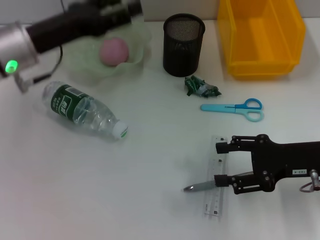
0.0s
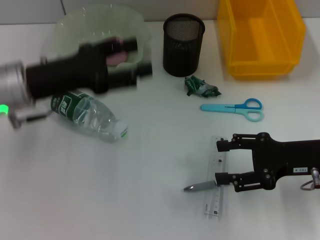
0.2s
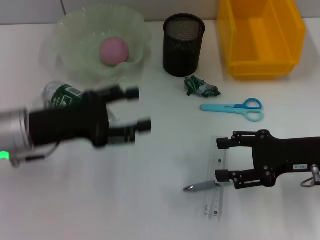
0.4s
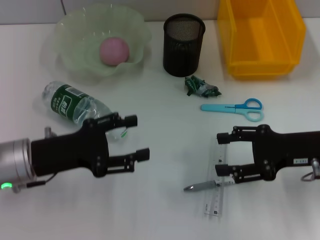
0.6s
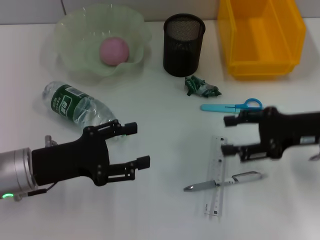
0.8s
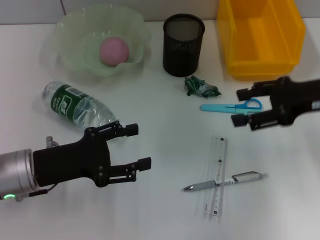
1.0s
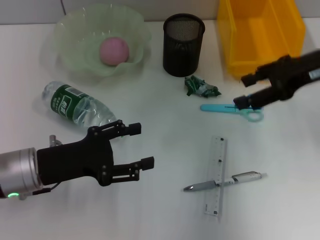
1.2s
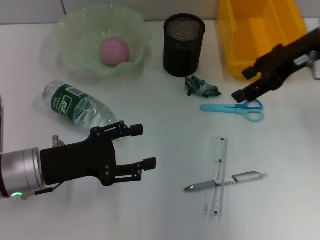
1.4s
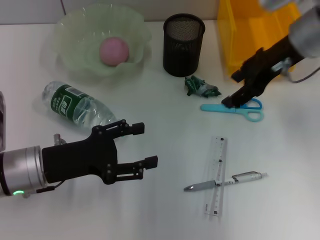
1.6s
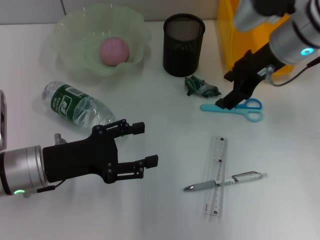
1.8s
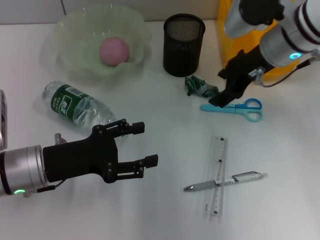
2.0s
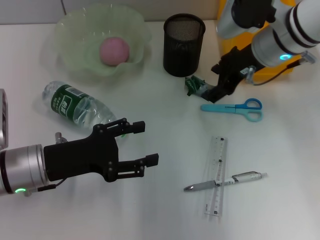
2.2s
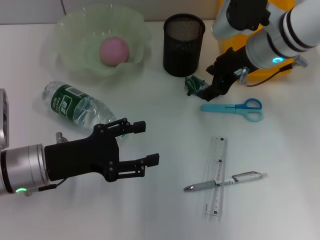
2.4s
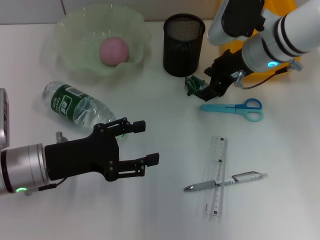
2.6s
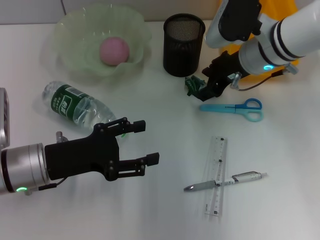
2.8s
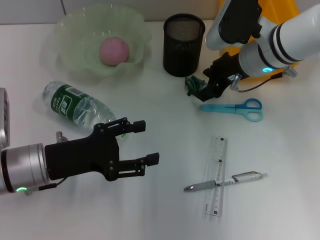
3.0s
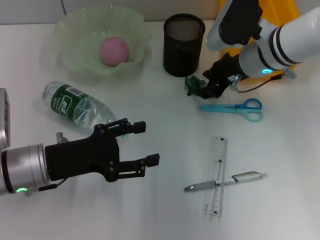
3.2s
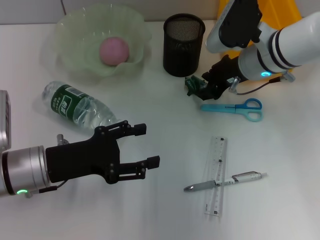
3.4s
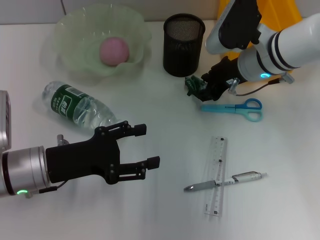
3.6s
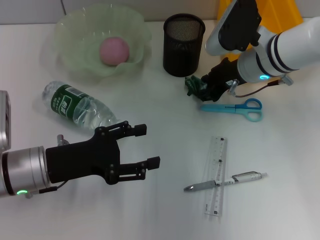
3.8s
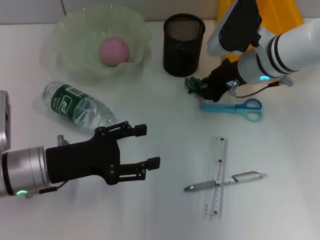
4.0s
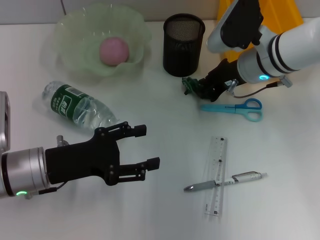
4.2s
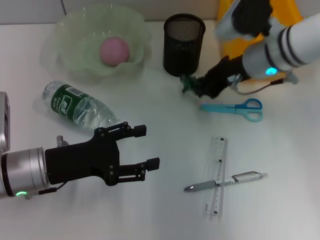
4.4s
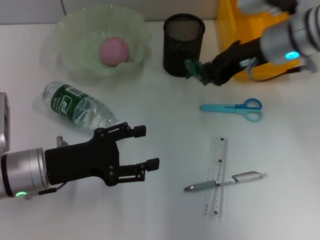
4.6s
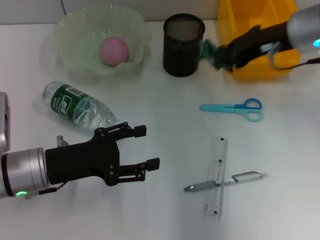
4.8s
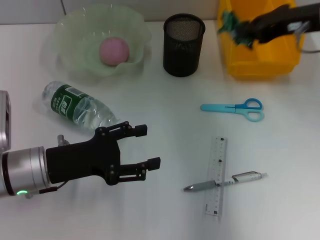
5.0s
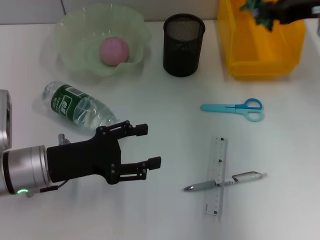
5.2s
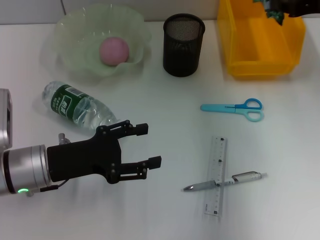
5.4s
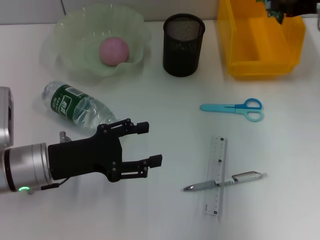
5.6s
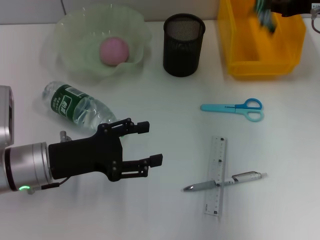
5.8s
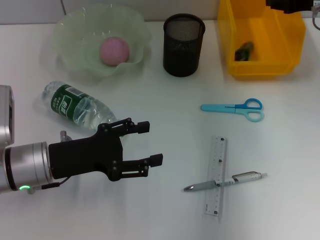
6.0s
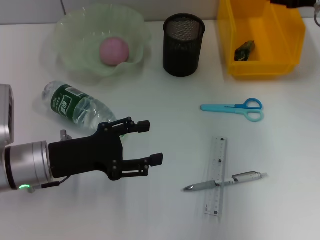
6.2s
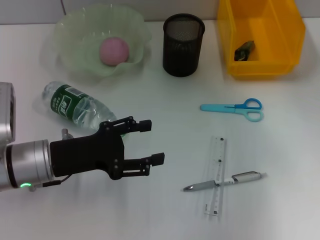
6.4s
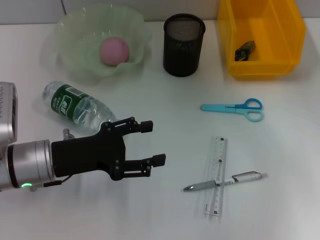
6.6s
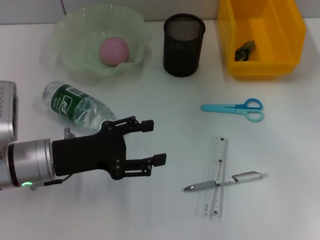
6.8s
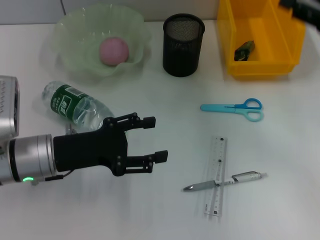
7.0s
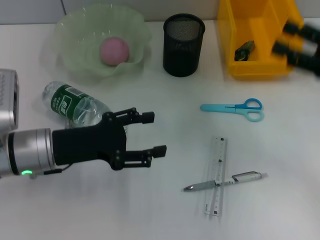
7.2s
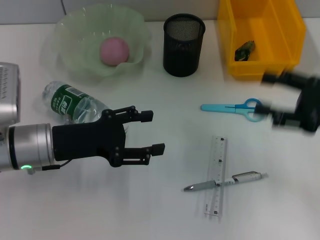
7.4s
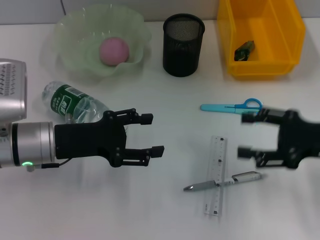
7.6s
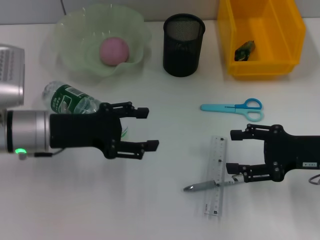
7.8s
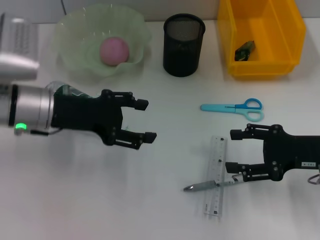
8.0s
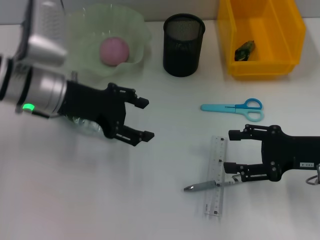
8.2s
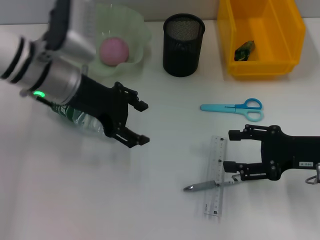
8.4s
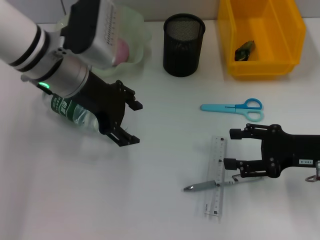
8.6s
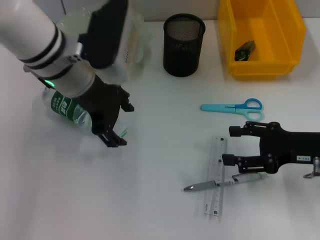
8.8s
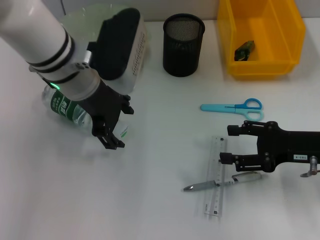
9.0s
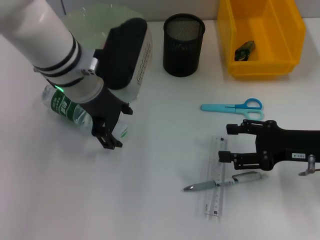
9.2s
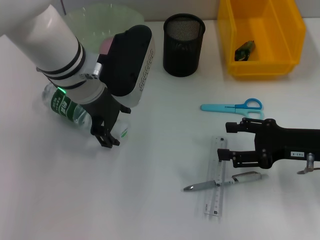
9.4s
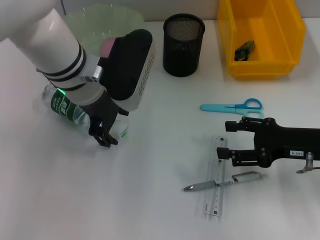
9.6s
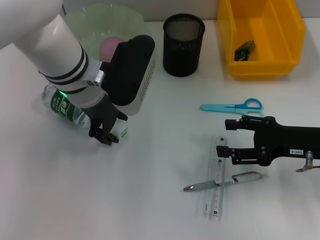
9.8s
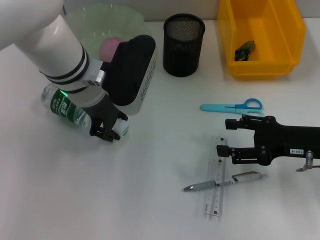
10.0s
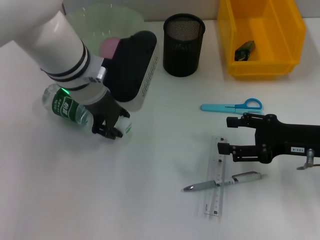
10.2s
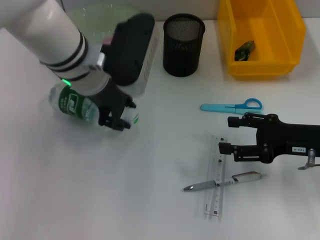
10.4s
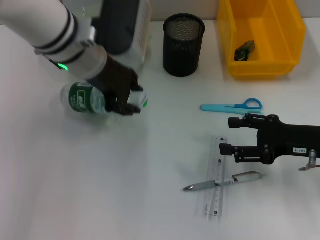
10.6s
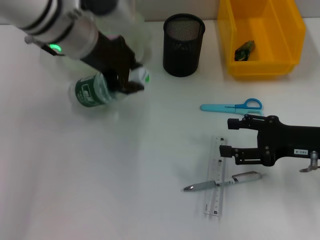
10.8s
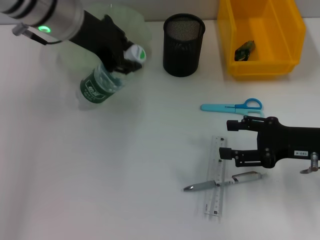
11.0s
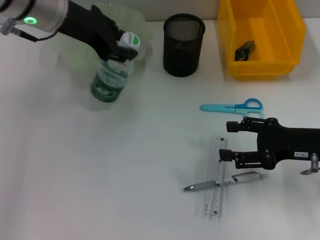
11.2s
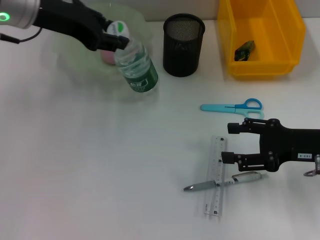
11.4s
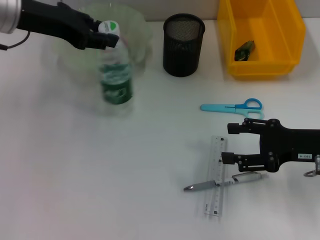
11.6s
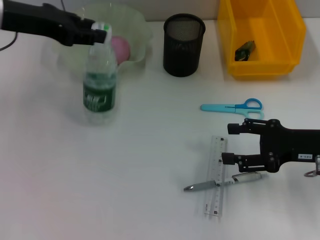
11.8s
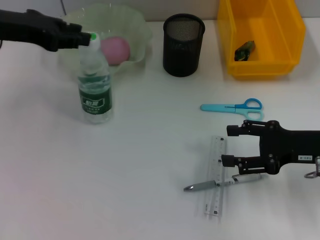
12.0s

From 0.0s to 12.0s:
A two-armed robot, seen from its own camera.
Step, from 0.0s to 4.0s: Grab the plastic with the right hand.
Step, from 4.2s to 6.0s: Place the plastic into the trash can with the right hand.
Step, from 6.4s to 9.8s: Grab the water bottle with the left hand.
From 0.0s to 1.6s: The right gripper heads upward, forward and to the left, covering approximately 20 cm, while the left gripper travels backward and downward by approximately 15 cm.
From 1.6s to 3.0s: The right gripper moves downward, some 5 cm.
From 3.0s to 4.4s: The right gripper closes its fingers.
From 4.4s to 6.0s: The right gripper moves to the right and upward, approximately 15 cm.
From 6.0s to 7.6s: The right gripper goes some 20 cm backward and downward, and opens up.
From 7.6s to 9.0s: The left gripper heads upward, to the right and forward, covering some 15 cm.
From 9.0s to 10.4s: The left gripper closes up.
From 10.4s to 12.0s: The left gripper is displaced to the left by about 15 cm.

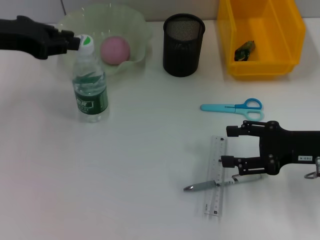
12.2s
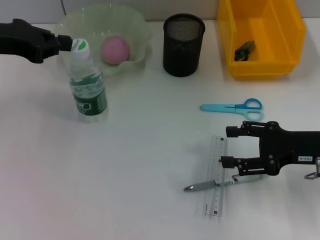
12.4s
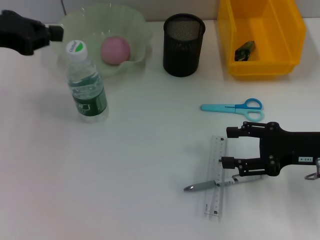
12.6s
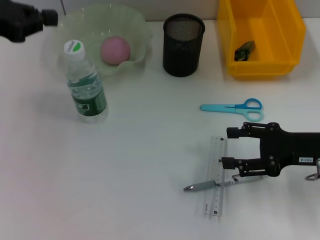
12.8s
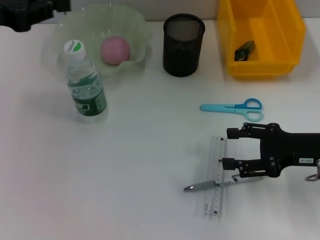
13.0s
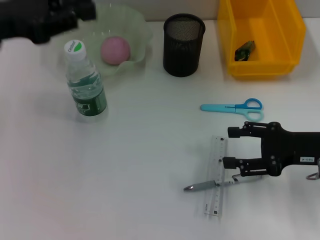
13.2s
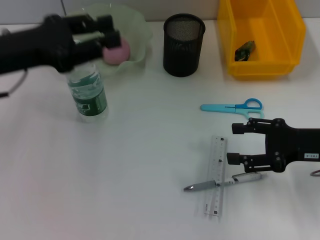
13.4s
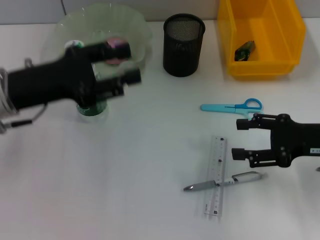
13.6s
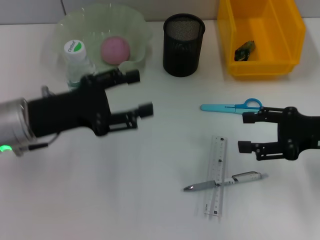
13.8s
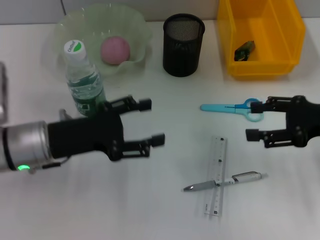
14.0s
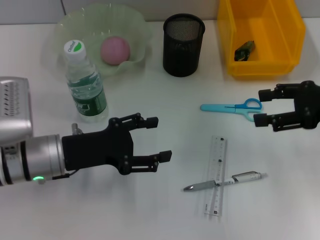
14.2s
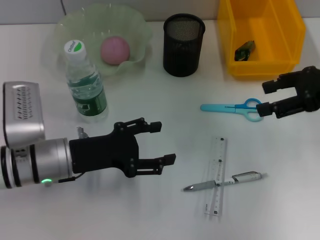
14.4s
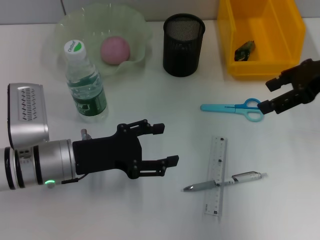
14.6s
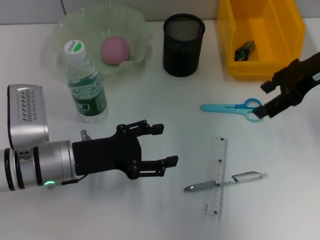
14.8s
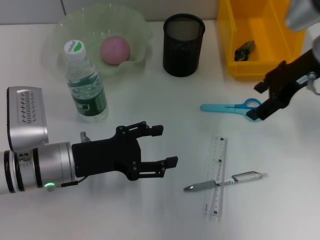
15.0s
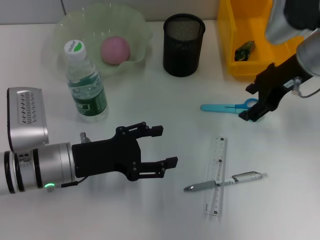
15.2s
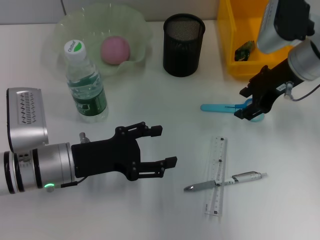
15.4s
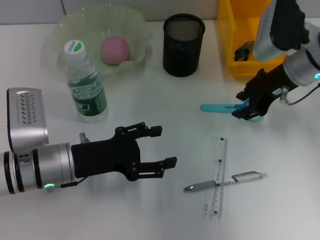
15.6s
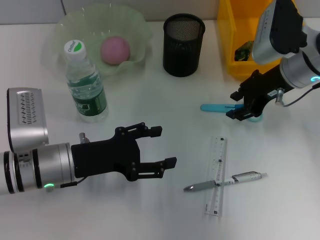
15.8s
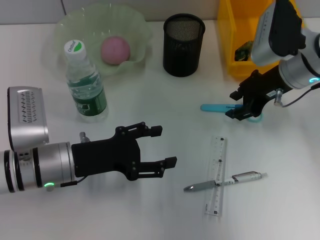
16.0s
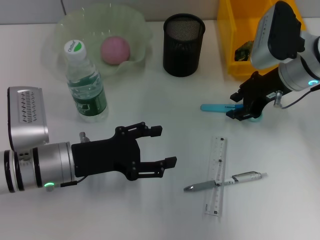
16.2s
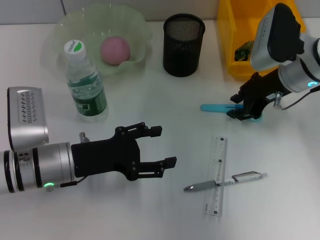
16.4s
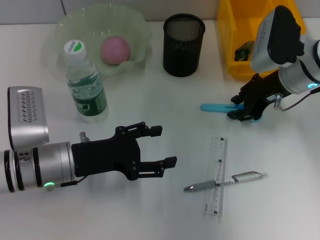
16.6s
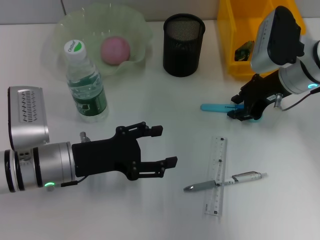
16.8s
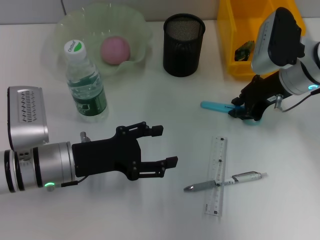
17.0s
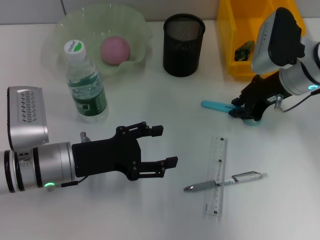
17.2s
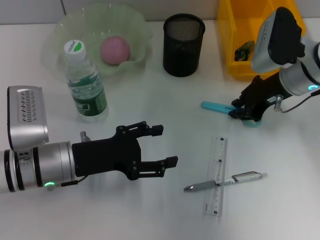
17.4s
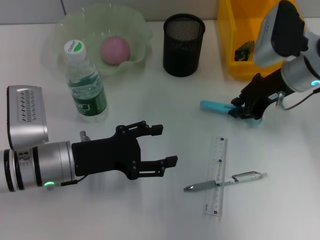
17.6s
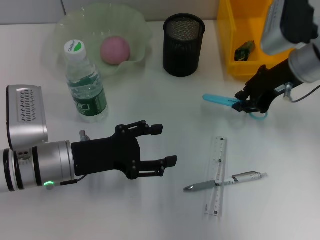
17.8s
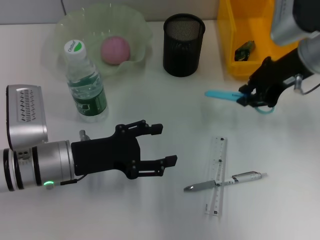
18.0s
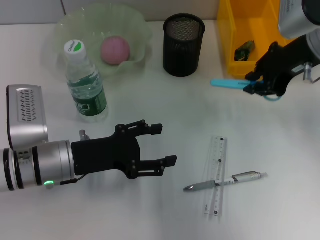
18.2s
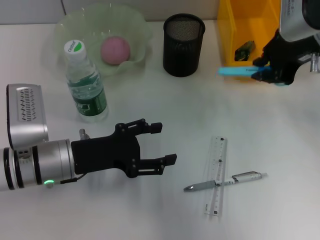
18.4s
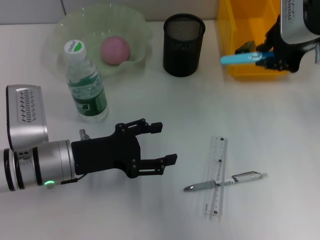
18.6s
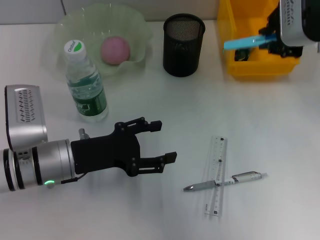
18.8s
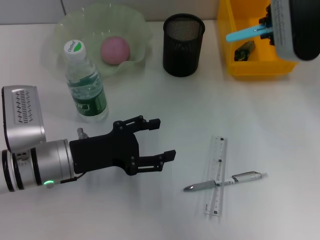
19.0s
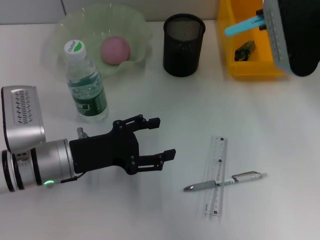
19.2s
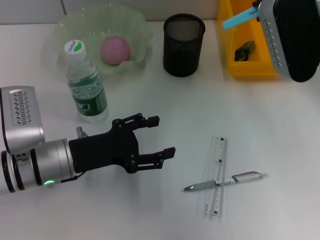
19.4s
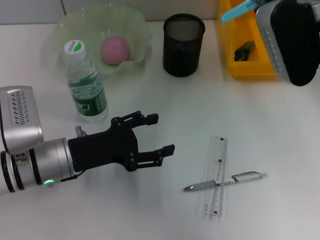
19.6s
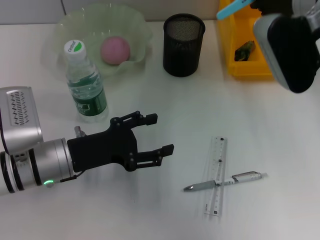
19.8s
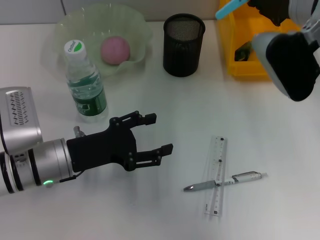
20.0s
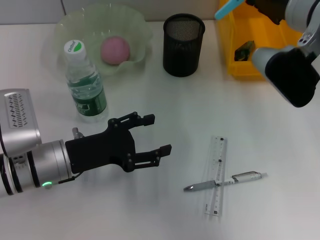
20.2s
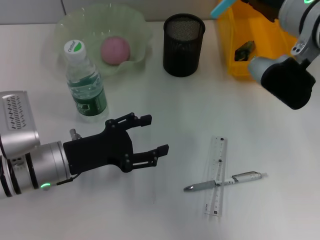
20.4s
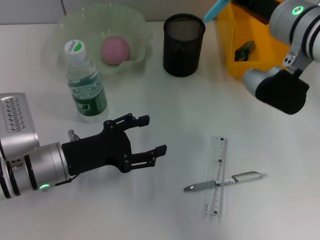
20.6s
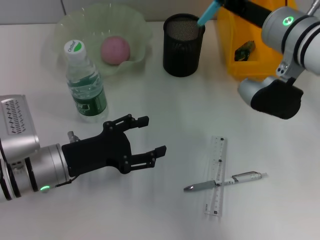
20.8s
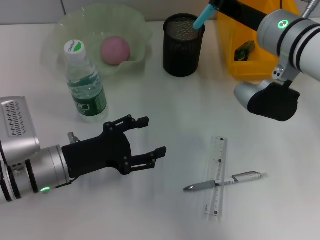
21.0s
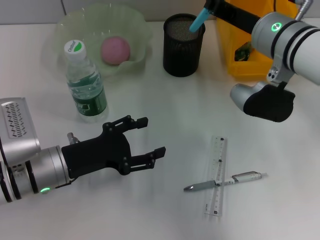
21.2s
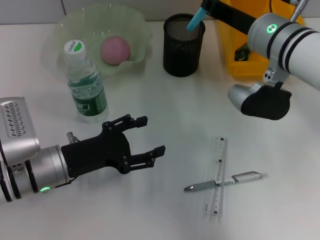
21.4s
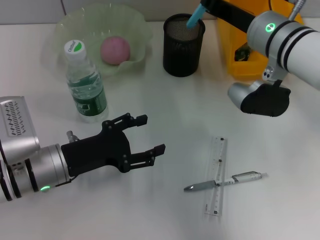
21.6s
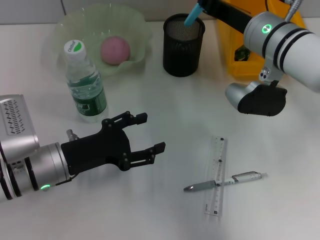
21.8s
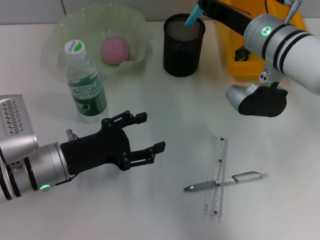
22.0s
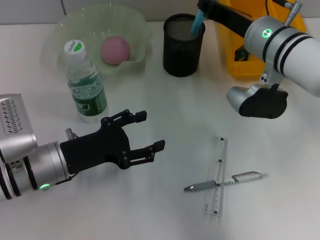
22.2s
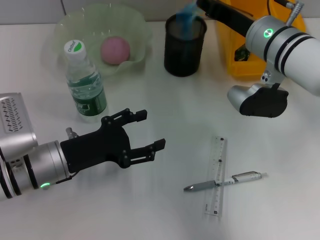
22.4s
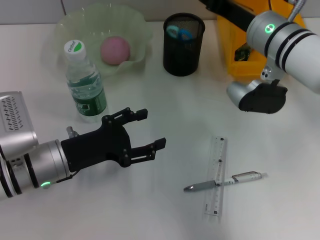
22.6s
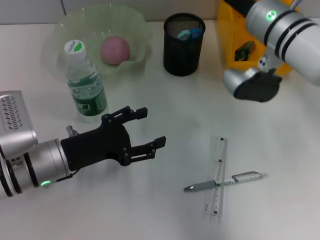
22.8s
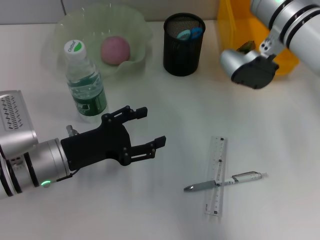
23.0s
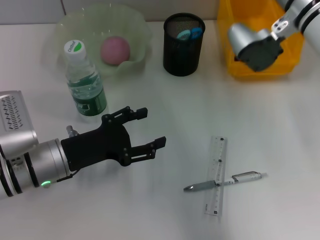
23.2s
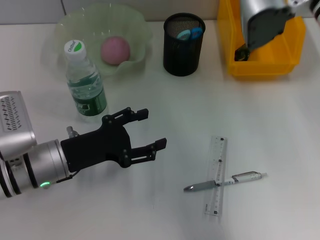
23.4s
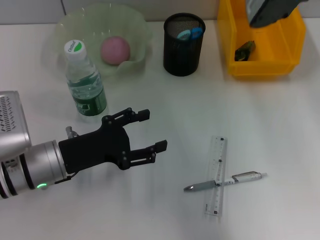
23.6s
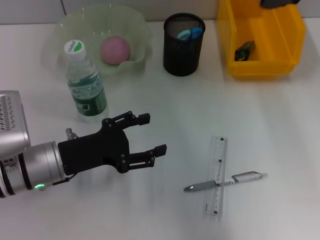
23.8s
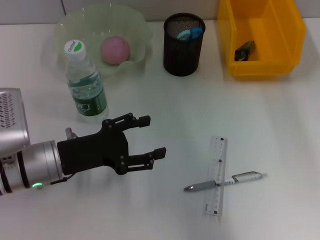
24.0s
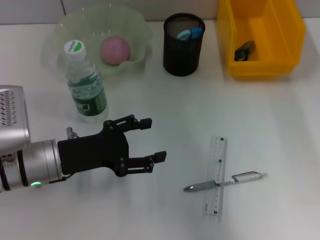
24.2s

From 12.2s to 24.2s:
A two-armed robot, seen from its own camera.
Step, from 12.6s to 17.2s: Grab the blue scissors with the right hand.
Step, from 17.4s to 22.8s: Place the blue scissors into the pen holder with the right hand.
From 12.2s to 13.8s: The left gripper heads downward, backward and to the right, covering some 15 cm.
From 13.8s to 15.2s: The left gripper is displaced downward by roughly 5 cm, and opens its fingers. Meanwhile the right gripper goes about 15 cm forward, to the left and upward.
From 15.2s to 16.6s: The right gripper shifts roughly 5 cm downward, and closes its fingers.
From 16.6s to 18.2s: The right gripper is displaced upward by roughly 10 cm.
From 19.8s to 21.2s: The right gripper travels downward by approximately 5 cm.
From 21.2s to 22.6s: The right gripper opens its fingers.
From 22.6s to 24.2s: The right gripper goes approximately 10 cm upward and to the right.
